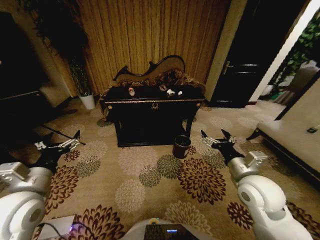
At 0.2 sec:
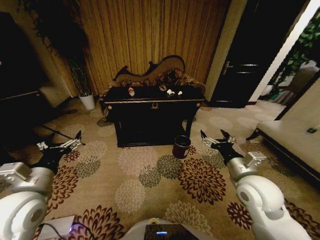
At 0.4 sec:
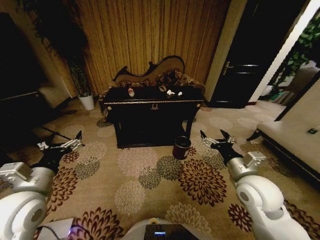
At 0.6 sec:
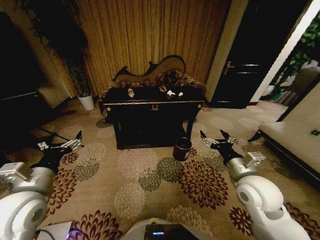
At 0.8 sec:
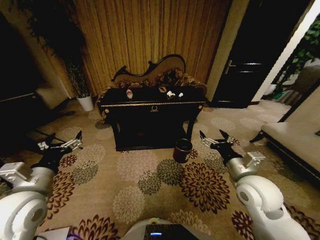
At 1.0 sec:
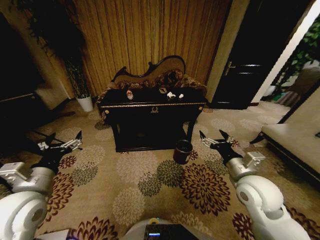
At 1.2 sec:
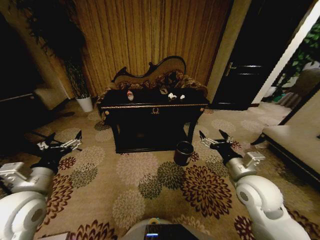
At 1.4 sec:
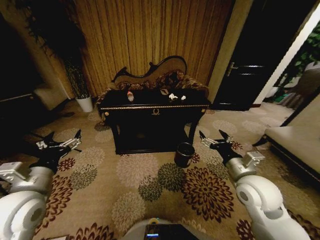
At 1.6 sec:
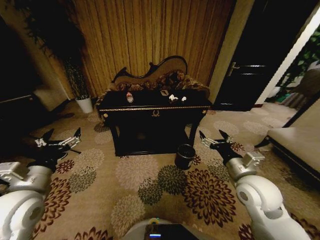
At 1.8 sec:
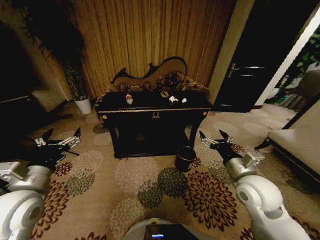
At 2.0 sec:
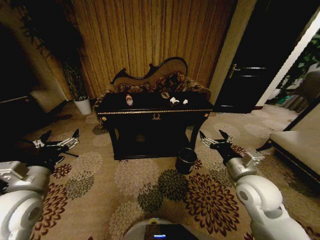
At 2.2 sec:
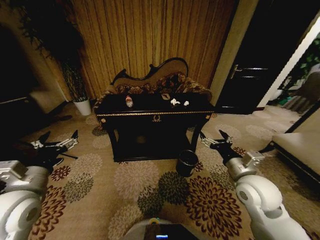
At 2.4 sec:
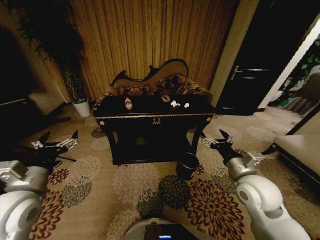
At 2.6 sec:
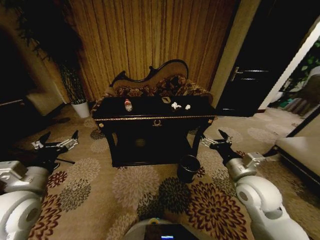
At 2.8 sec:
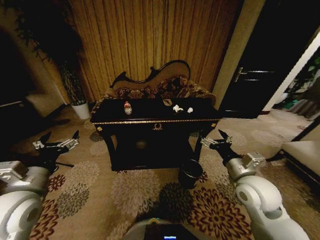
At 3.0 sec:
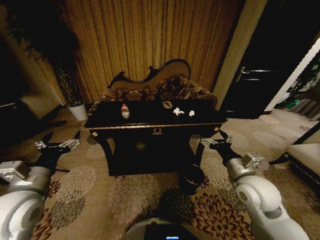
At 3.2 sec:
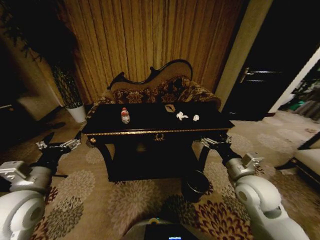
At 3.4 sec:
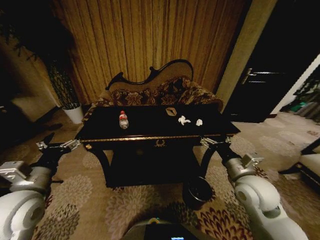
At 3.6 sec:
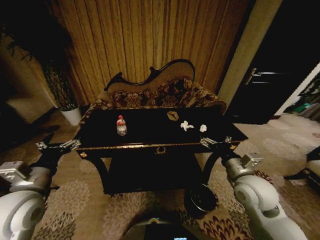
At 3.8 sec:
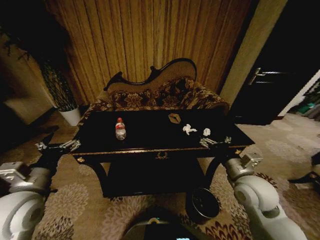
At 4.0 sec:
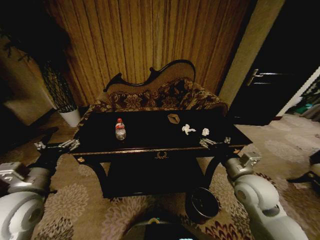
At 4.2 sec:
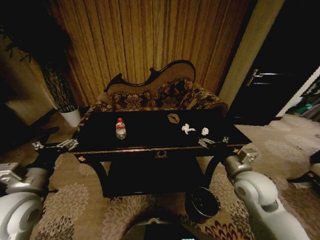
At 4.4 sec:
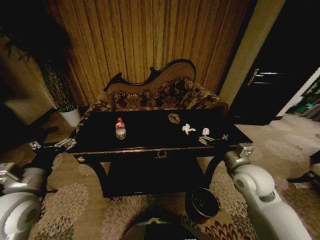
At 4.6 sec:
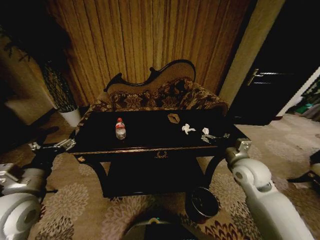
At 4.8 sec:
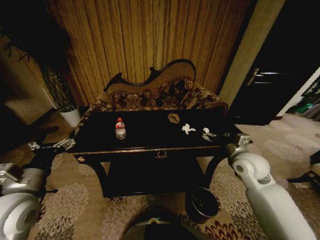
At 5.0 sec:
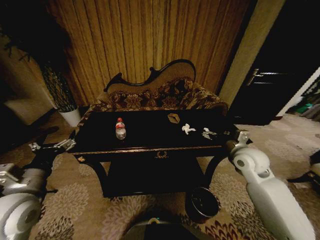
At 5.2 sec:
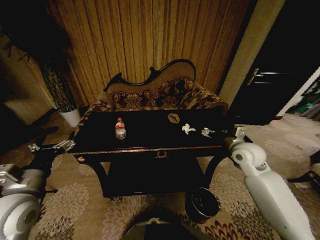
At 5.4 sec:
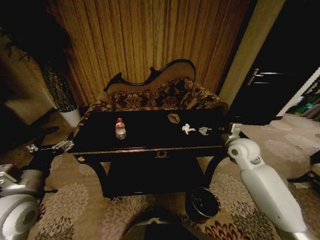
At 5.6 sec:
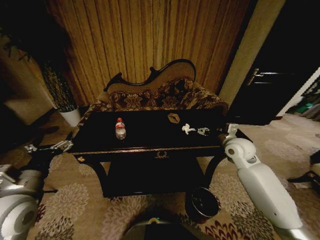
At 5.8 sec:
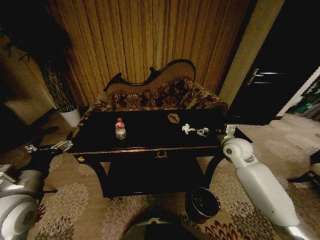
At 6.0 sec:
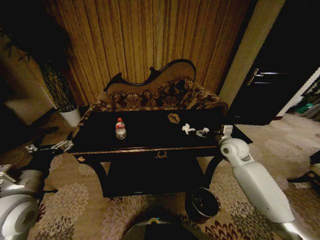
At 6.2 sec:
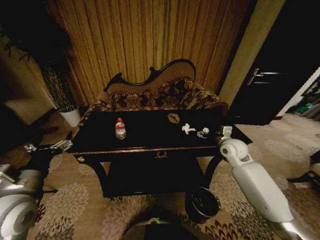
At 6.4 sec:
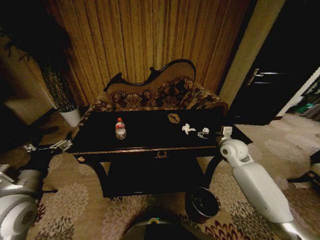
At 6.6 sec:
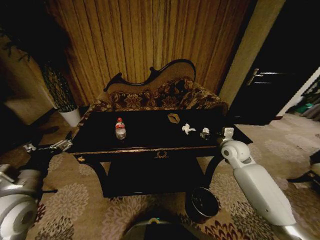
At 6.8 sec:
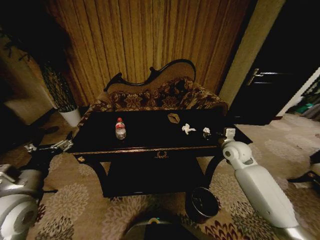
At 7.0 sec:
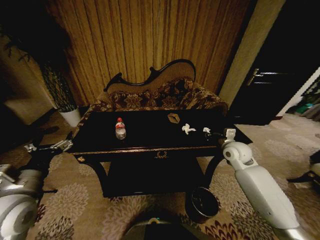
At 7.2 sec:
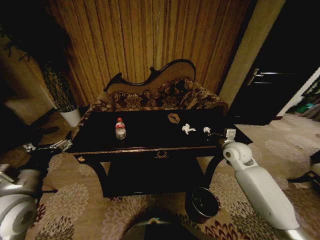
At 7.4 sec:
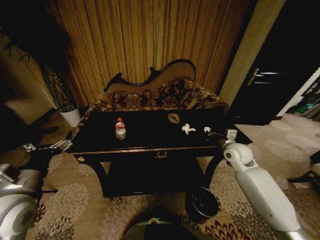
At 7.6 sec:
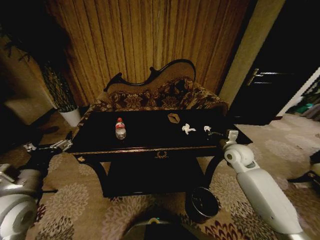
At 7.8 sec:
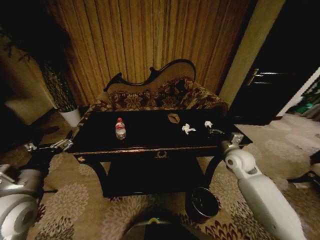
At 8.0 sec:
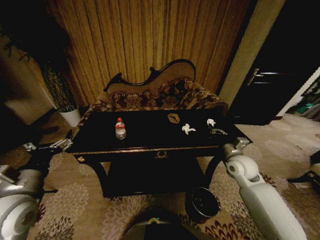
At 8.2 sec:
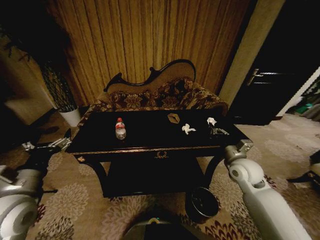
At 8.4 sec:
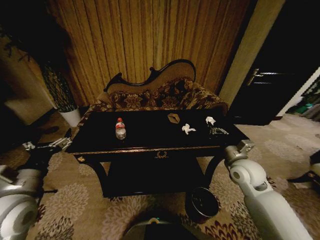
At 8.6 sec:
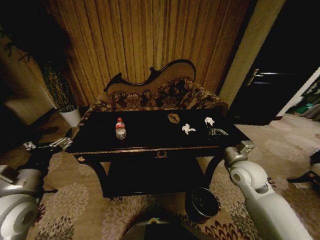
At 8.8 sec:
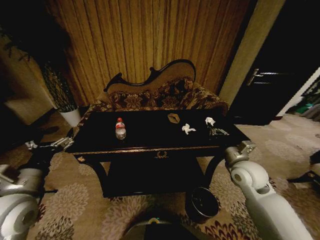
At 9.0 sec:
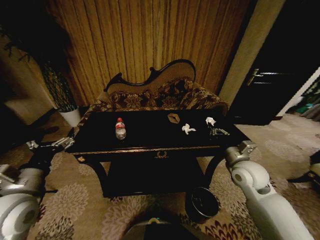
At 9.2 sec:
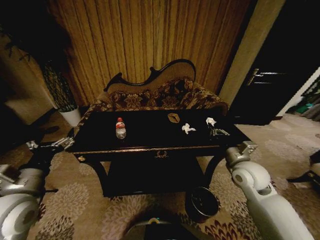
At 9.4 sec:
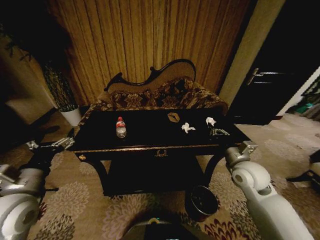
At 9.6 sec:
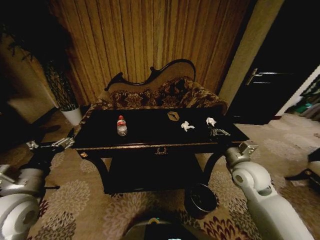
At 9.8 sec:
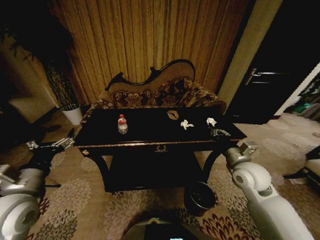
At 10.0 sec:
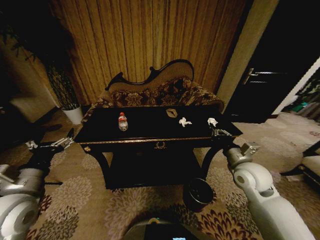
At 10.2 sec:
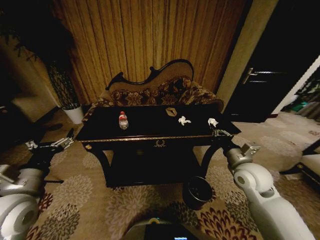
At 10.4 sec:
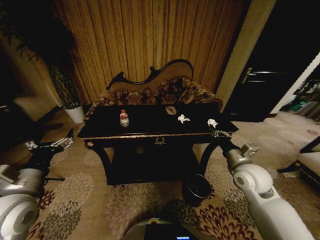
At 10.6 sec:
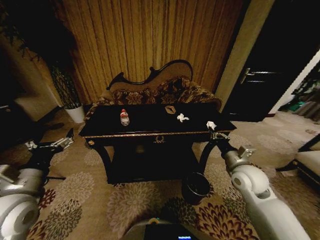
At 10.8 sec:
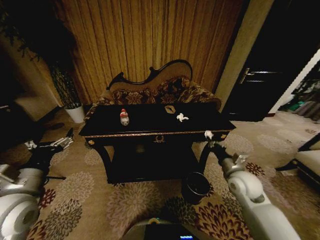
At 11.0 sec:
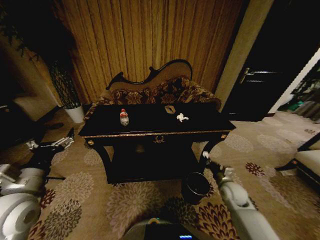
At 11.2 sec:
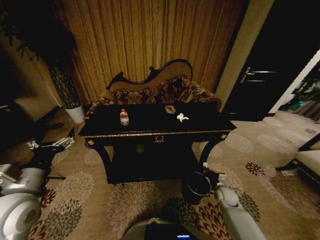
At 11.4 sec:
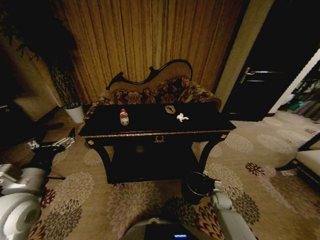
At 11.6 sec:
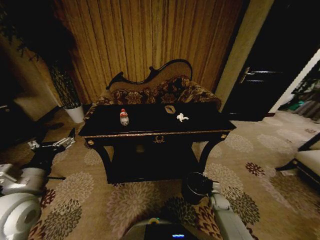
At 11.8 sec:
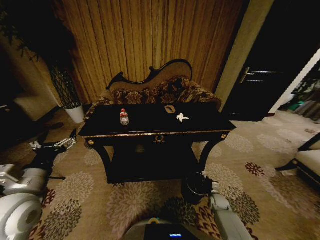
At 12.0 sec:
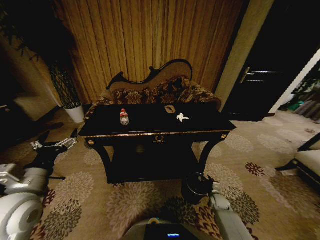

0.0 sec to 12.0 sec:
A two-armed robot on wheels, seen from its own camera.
Task of the whole recording: Move to the front of the table and place the trash on the table into the trash bin.
4.4 sec to 6.0 sec: The right gripper heads forward, covering about 15 cm.
6.0 sec to 7.6 sec: The right gripper closes up.
7.6 sec to 9.0 sec: The right gripper is displaced backward by approximately 10 cm.
10.4 sec to 12.0 sec: The right gripper moves downward, about 35 cm.

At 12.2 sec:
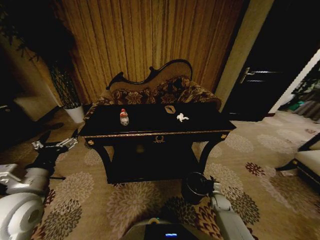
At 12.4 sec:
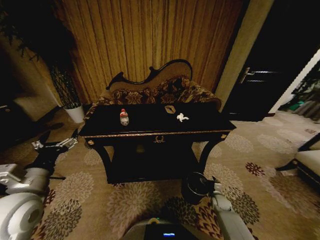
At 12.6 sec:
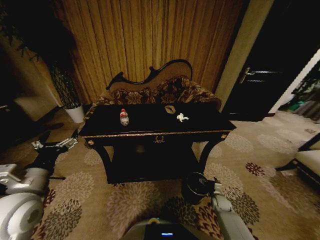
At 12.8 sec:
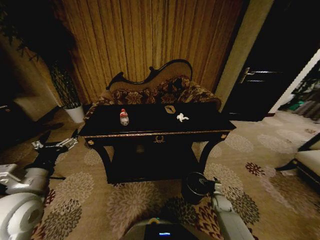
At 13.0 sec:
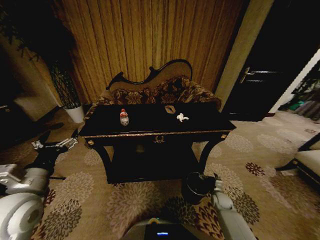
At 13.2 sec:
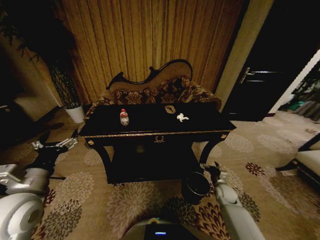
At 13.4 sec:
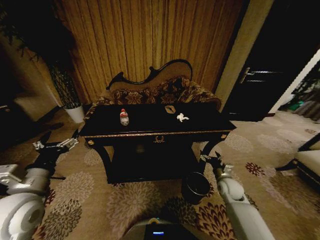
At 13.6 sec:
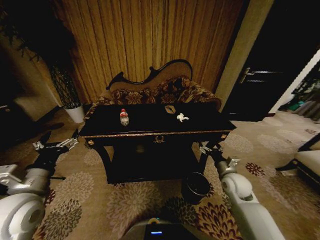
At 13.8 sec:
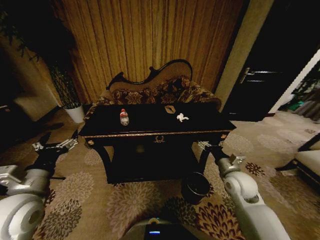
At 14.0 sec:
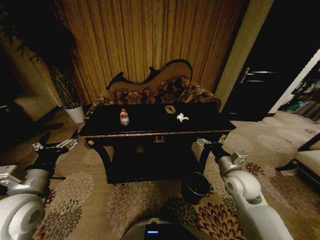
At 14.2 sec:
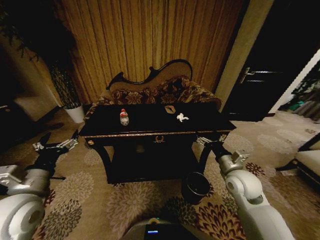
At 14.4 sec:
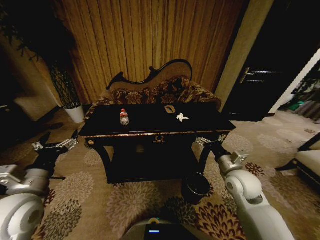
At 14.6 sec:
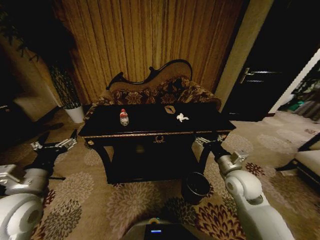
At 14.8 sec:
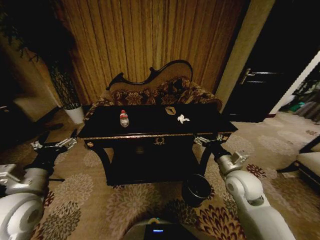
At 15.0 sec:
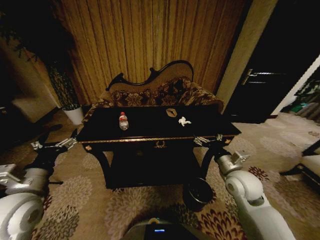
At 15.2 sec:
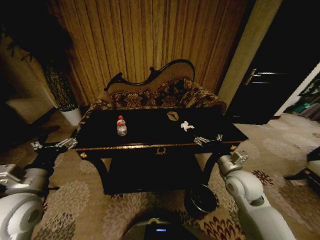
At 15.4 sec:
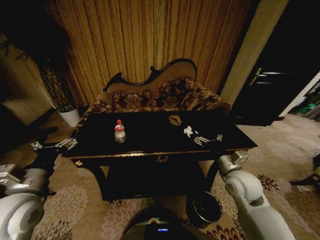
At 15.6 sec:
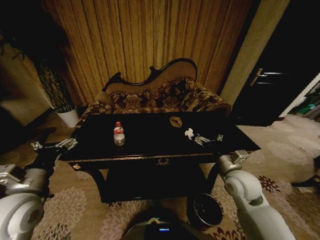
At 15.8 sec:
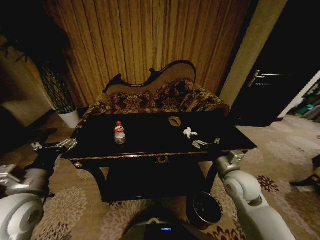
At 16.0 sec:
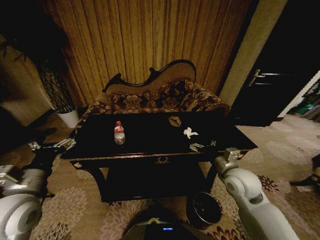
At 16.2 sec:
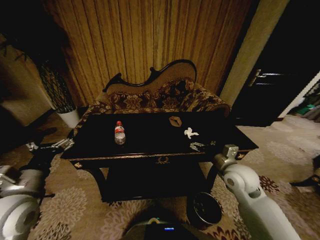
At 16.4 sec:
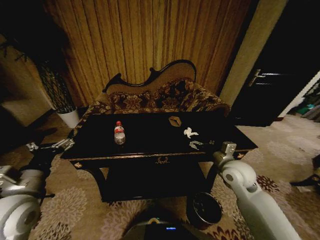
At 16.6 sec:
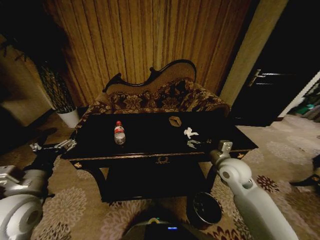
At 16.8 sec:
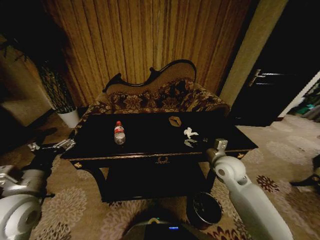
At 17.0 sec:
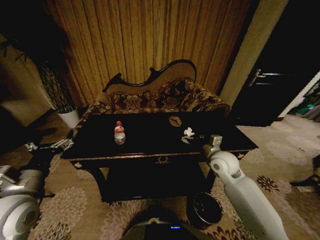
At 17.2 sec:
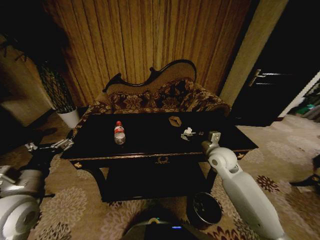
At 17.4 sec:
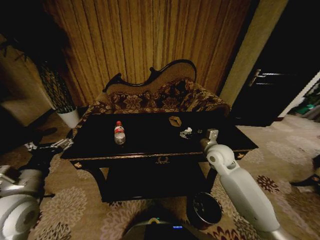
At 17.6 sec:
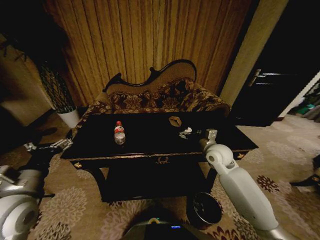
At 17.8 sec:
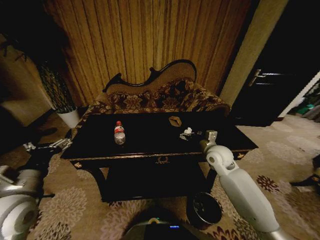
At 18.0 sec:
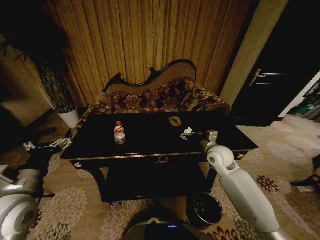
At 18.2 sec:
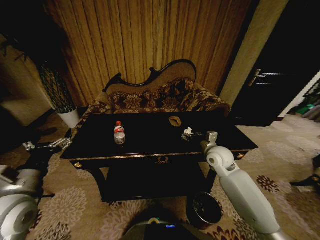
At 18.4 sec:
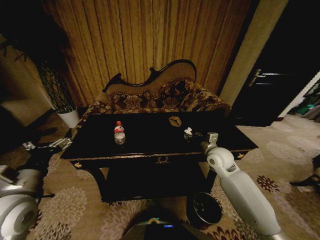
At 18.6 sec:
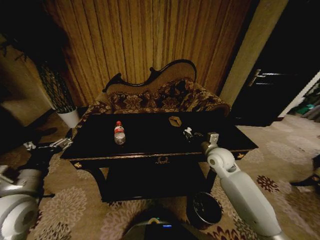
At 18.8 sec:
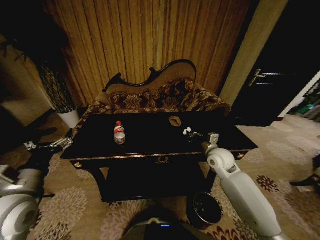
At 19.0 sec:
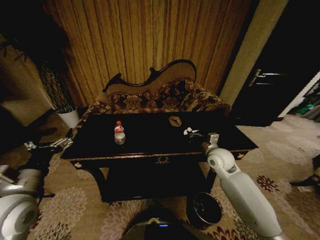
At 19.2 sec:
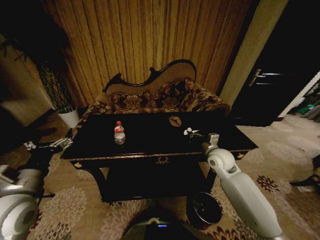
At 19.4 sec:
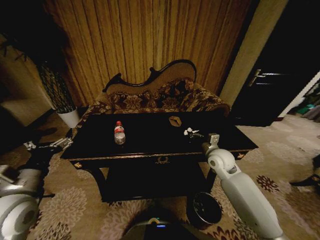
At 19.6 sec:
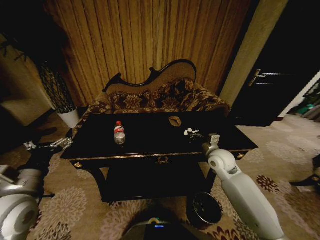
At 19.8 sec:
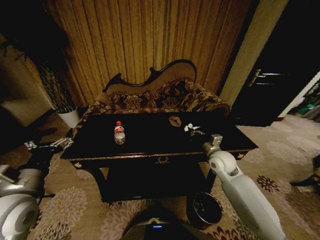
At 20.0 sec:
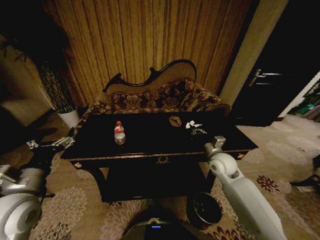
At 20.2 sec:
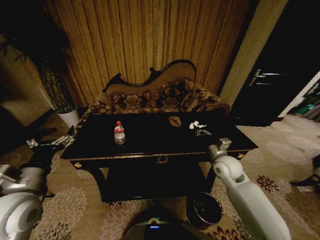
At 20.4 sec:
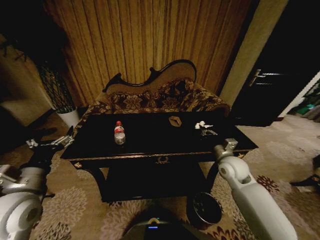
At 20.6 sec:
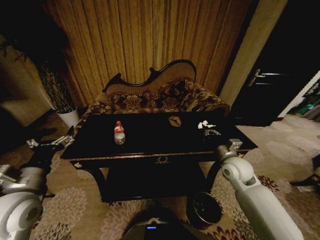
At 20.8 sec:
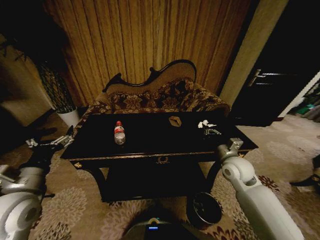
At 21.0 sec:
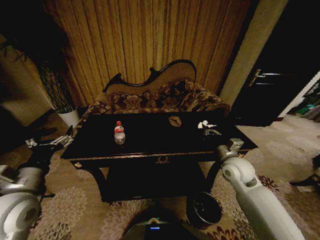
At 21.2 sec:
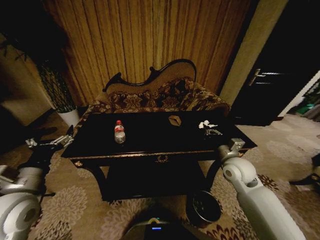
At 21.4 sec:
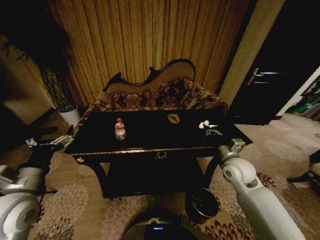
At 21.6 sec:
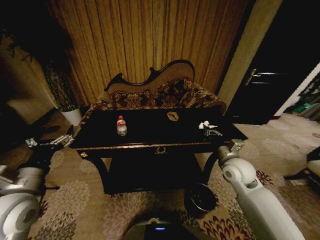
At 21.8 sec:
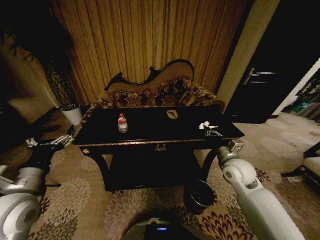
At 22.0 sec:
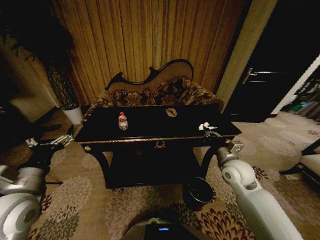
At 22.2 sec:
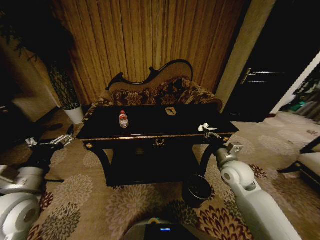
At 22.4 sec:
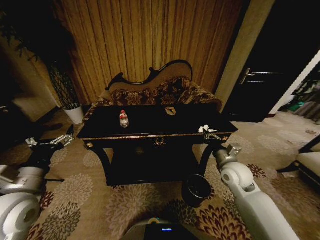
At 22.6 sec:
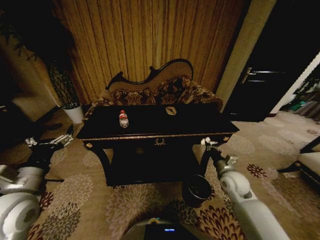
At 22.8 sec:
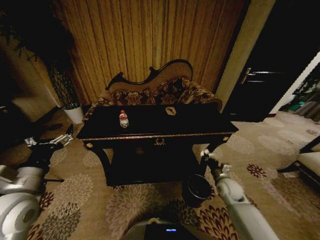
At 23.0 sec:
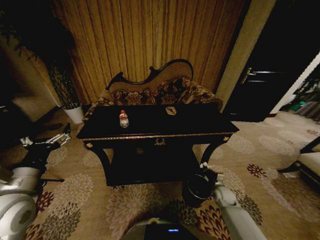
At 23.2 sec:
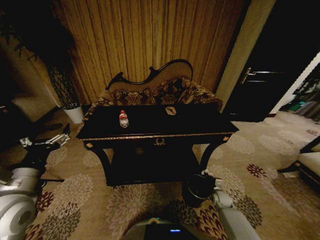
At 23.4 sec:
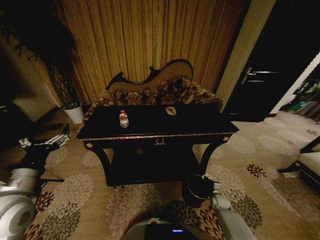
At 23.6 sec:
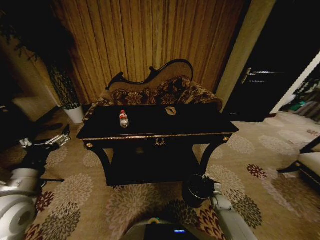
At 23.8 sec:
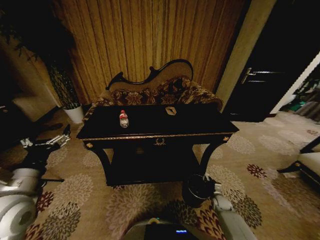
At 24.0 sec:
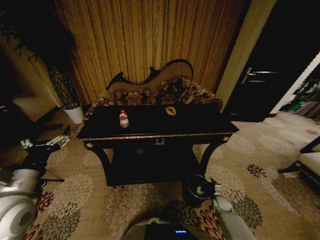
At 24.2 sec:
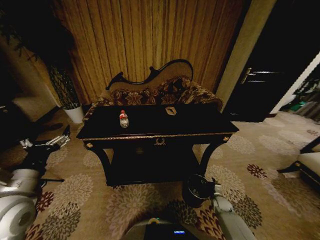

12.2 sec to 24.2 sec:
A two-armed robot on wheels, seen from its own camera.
Task of the whole recording: Move to the front of the table and place the trash on the table into the trash bin.
12.2 sec to 13.8 sec: The right gripper goes about 30 cm upward, and opens up.
16.6 sec to 18.2 sec: The right gripper shifts roughly 5 cm forward.
18.2 sec to 19.8 sec: The right gripper closes its fingers.
19.8 sec to 21.2 sec: The right gripper changes place by approximately 5 cm.
21.2 sec to 22.6 sec: The right gripper travels downward by about 5 cm.
22.6 sec to 24.2 sec: The right gripper travels downward by roughly 30 cm, and opens its fingers.
